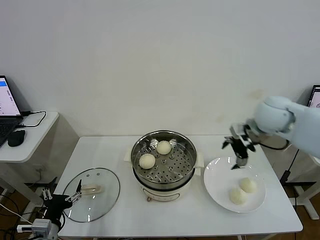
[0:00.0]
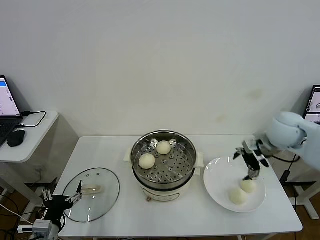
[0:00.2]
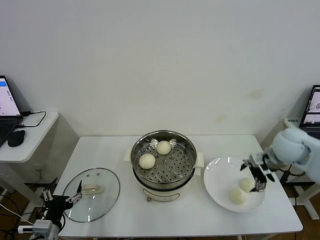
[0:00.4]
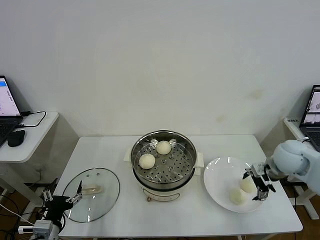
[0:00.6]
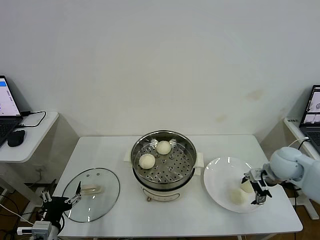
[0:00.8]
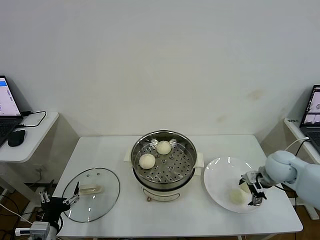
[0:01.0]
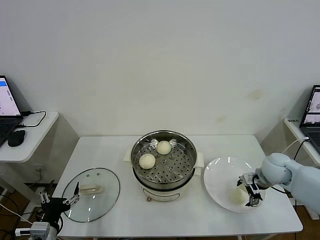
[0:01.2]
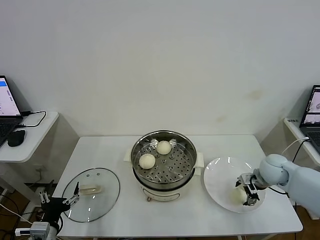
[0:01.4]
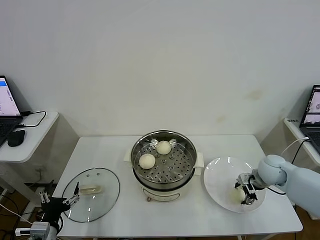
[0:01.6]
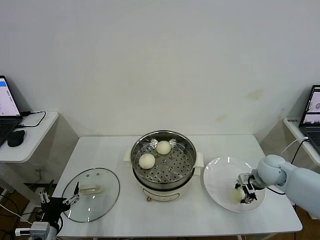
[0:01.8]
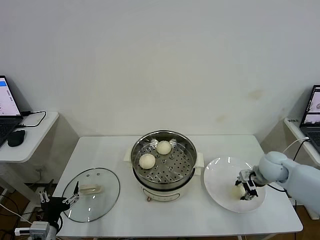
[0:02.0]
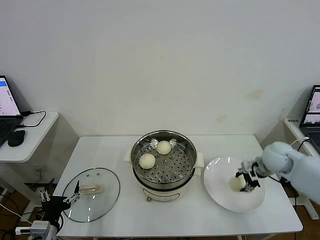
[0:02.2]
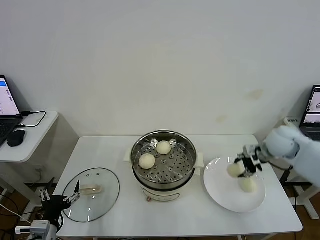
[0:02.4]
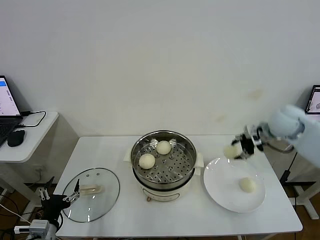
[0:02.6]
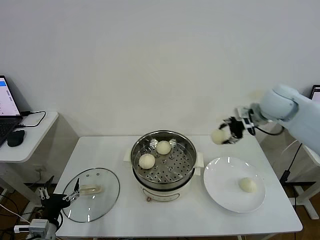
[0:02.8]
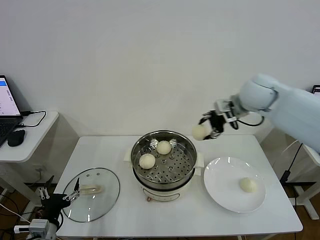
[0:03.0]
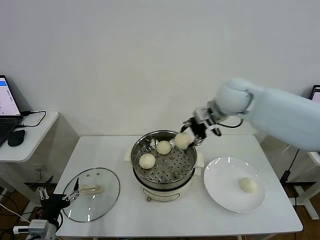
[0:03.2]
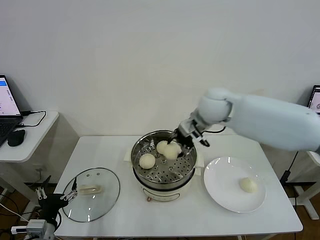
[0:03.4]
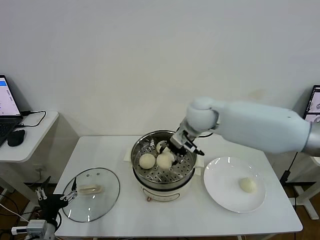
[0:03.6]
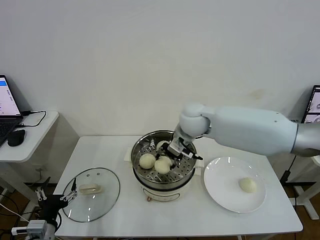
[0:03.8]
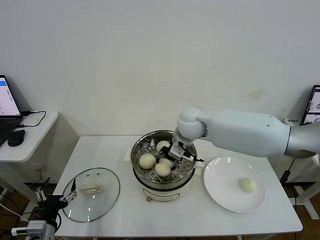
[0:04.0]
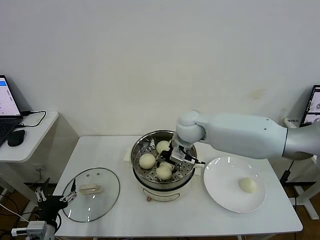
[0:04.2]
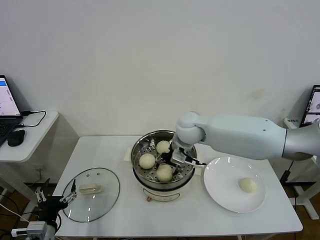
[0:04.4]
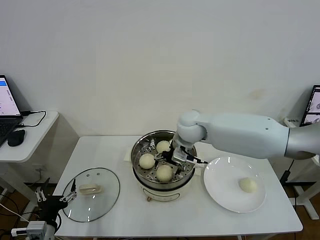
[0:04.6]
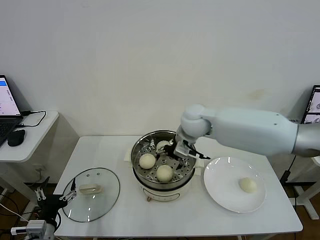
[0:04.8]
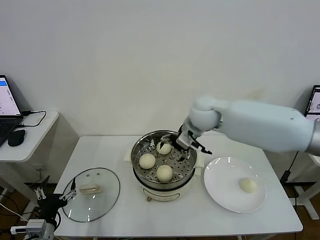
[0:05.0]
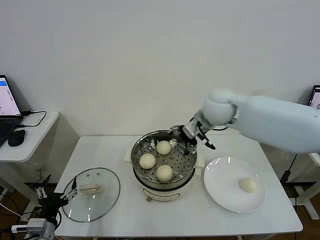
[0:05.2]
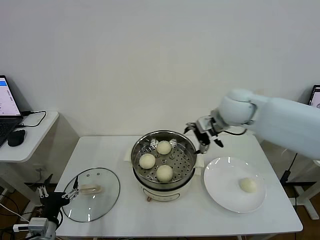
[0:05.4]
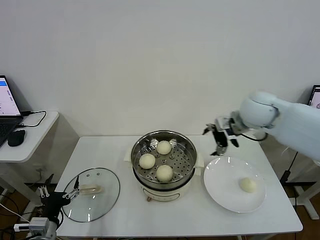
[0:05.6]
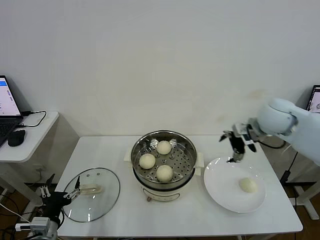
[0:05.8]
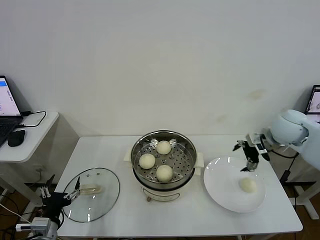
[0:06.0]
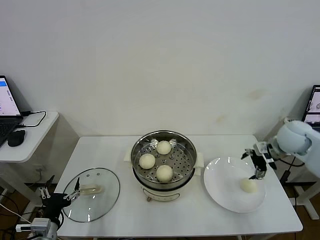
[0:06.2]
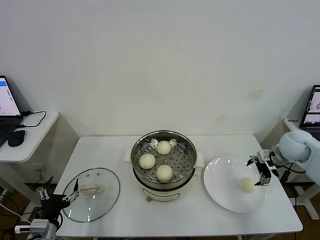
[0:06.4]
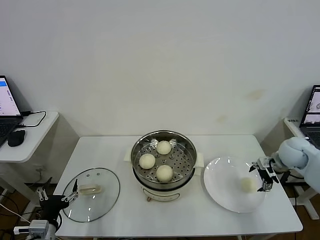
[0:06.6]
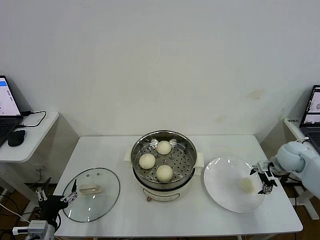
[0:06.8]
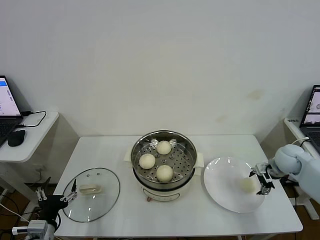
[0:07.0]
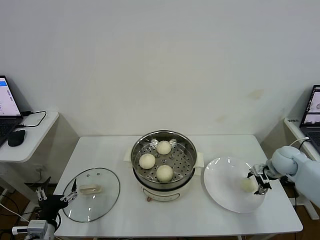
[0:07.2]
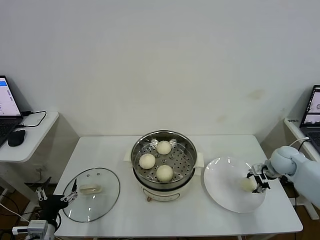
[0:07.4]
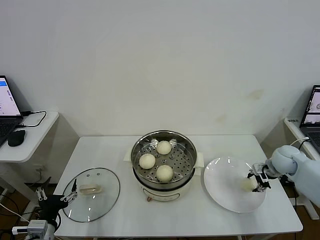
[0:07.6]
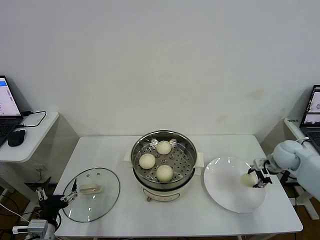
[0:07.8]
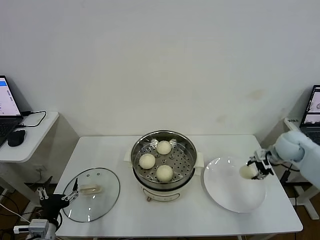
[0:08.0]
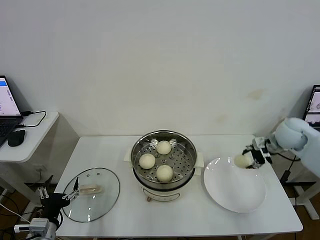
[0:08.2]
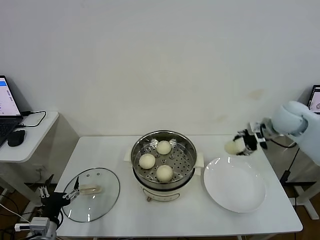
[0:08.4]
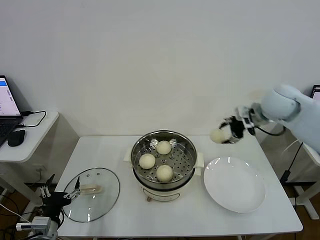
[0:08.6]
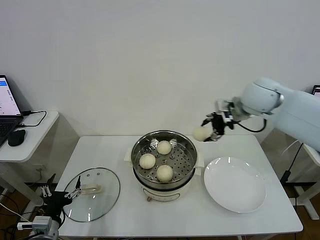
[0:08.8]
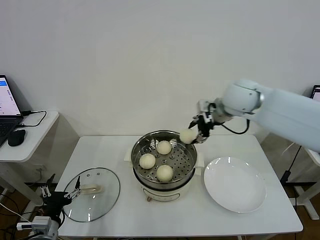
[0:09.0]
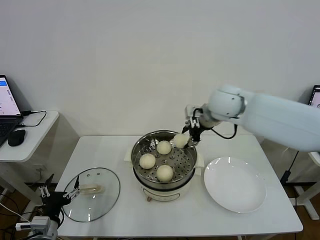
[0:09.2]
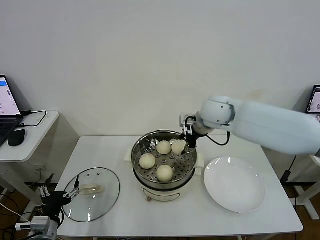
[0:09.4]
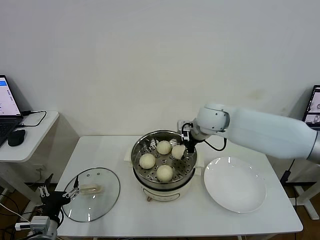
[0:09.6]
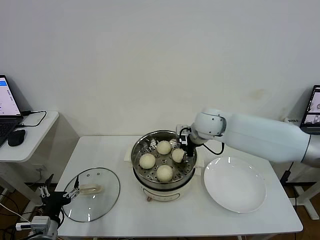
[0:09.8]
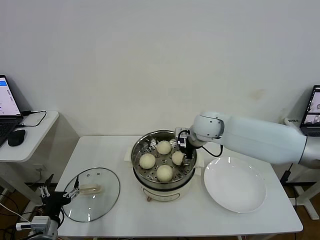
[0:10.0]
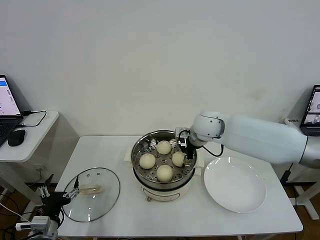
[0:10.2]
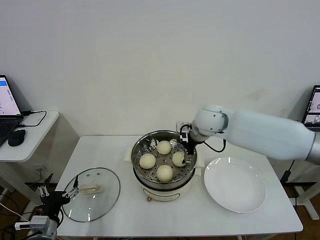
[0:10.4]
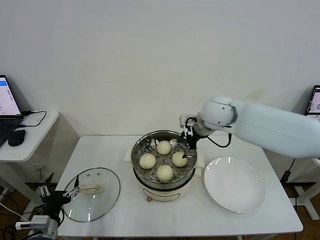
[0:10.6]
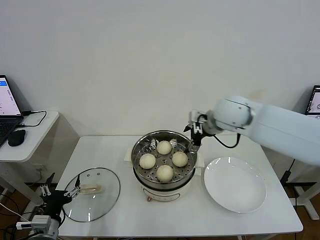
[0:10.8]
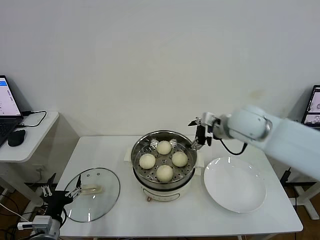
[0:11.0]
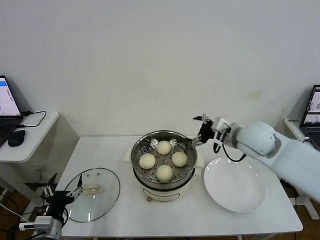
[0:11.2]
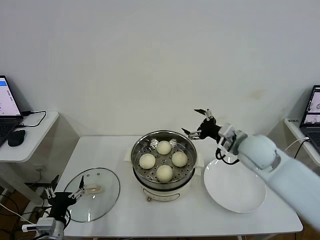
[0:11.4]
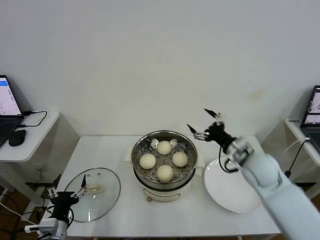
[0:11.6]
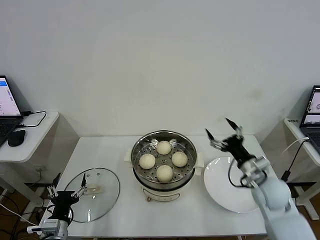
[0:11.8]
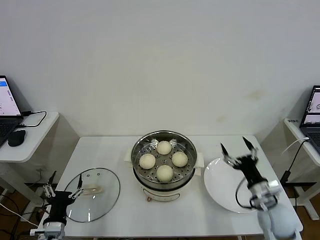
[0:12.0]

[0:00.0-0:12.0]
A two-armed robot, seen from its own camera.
Task of the whole recording: take steamed baozi put them in steamer then cover it.
Step, 0:00.0 to 0:01.8: Grasp the baozi in the plate with right gripper.
Step, 0:02.0 to 0:04.8: Place the baozi on the steamer with right gripper.
Step, 0:05.0 to 0:07.4: Grasp the baozi in the plate with right gripper.
Step, 0:07.8 to 0:10.2: Place the baozi on the steamer with right gripper.
0:00.0 to 0:01.6: The right gripper is displaced downward by approximately 20 cm, and closes up.
0:01.6 to 0:03.0: The right gripper travels upward and to the left by about 30 cm.
0:03.0 to 0:04.4: The right gripper travels to the left and downward by about 20 cm, and opens its fingers.
0:04.4 to 0:06.0: The right gripper goes approximately 30 cm to the right, and opens up.
0:06.0 to 0:07.6: The right gripper moves downward and to the right, approximately 15 cm, and closes.
0:07.6 to 0:09.0: The right gripper moves to the left and upward, some 35 cm.
0:09.0 to 0:10.4: The right gripper heads downward and to the left, covering roughly 10 cm, and opens up.
0:10.4 to 0:12.0: The right gripper is displaced backward, downward and to the right by about 35 cm.

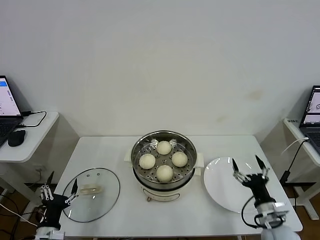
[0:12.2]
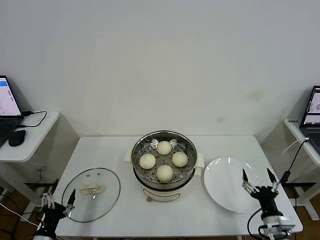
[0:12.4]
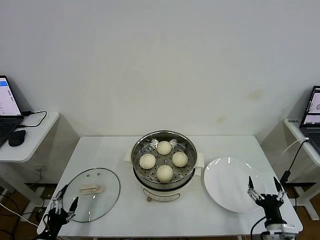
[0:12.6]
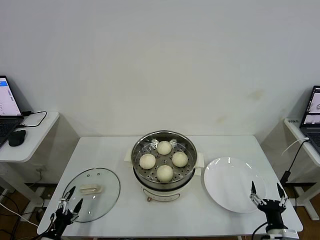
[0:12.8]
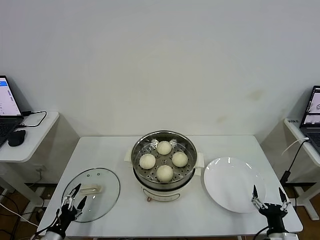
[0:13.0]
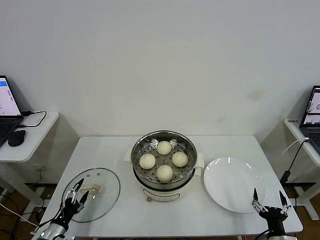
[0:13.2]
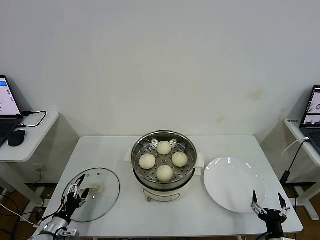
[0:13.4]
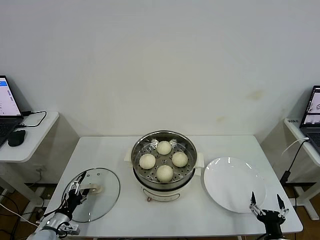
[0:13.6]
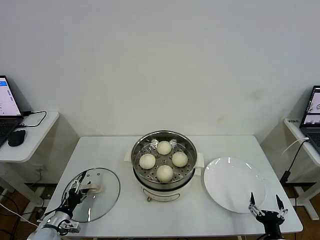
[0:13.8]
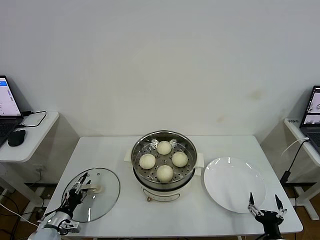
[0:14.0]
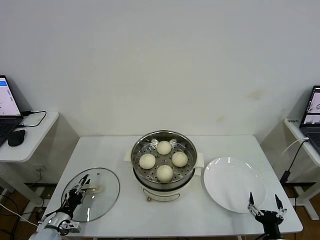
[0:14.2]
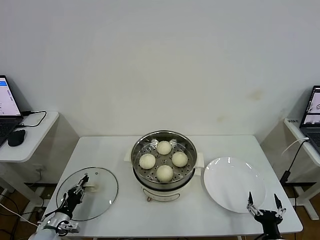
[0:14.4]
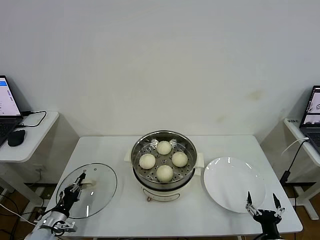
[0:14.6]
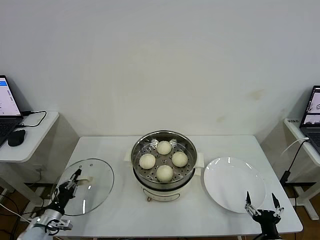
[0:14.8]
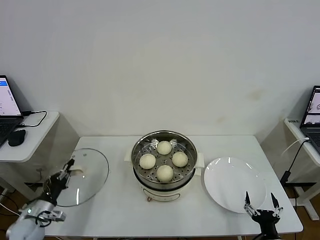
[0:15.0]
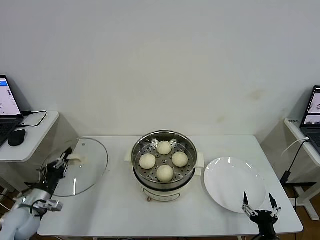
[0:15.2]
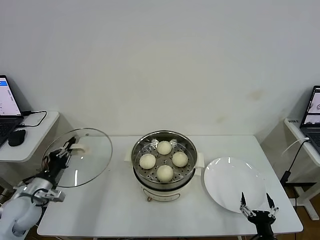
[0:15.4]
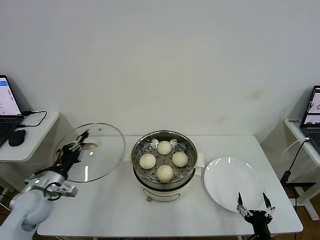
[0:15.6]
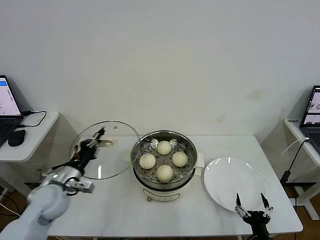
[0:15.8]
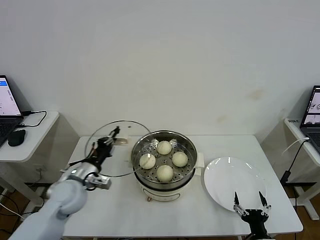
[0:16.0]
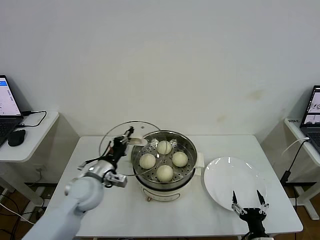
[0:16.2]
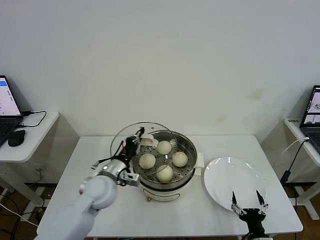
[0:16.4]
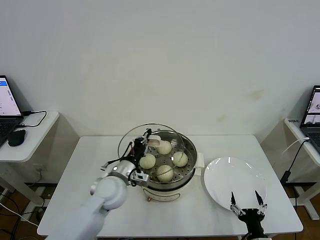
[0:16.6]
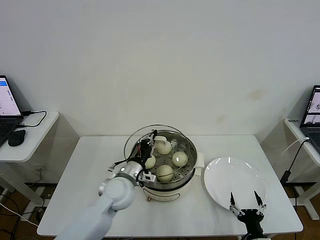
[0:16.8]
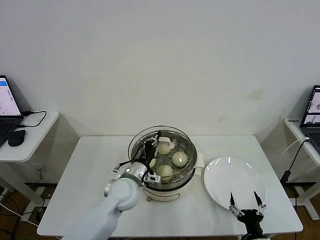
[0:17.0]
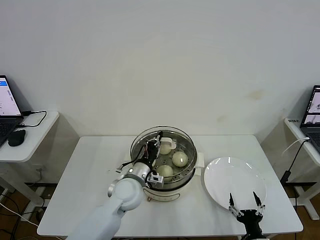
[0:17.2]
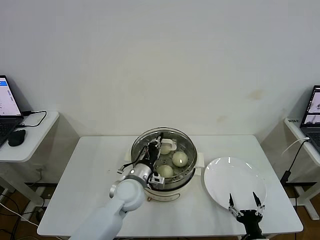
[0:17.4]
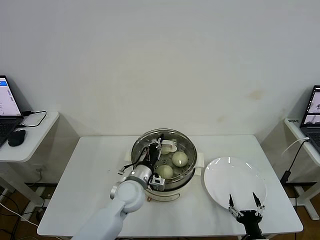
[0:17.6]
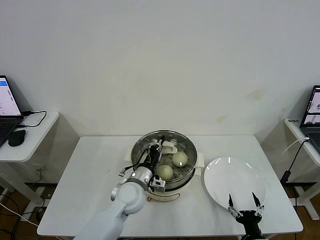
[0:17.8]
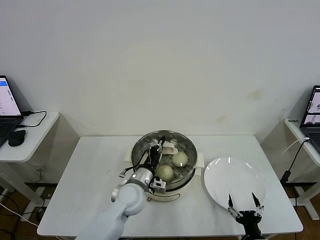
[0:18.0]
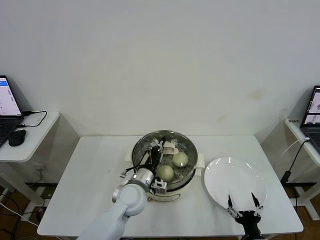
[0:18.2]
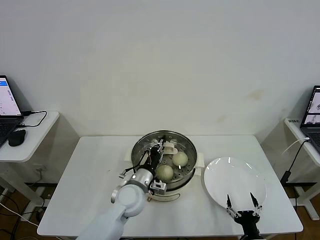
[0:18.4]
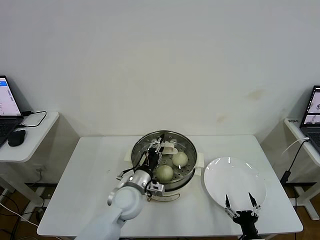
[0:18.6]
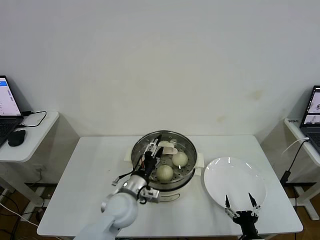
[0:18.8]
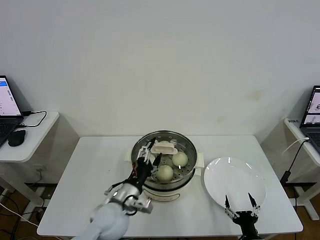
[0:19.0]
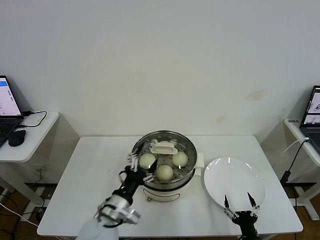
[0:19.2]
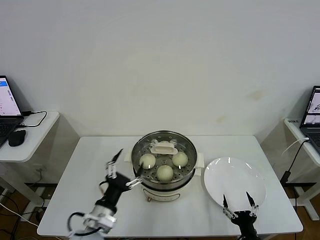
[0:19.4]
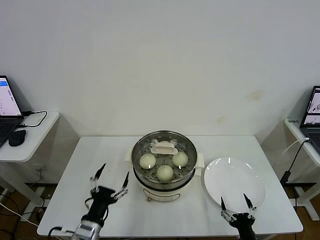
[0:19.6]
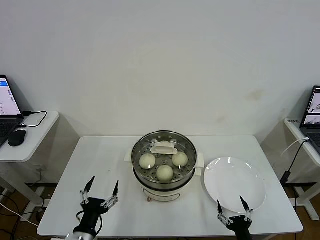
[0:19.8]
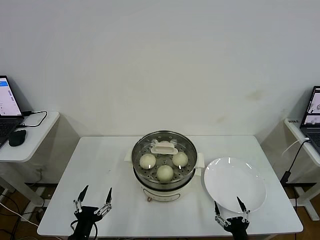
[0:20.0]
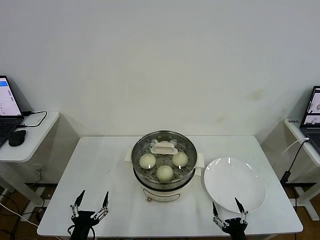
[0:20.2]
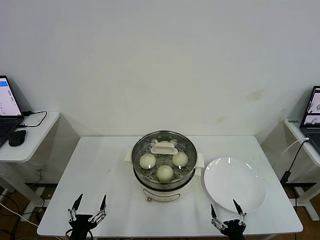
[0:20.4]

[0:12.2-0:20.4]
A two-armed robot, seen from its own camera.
Task of the whole recording: take steamed baozi put them in steamer then cover it.
Step, 0:12.2 to 0:14.6: Grasp the pot lid with left gripper.
Step, 0:14.8 to 0:19.0: Place the pot lid on the steamer with left gripper.
0:12.2 to 0:13.8: The left gripper is displaced downward, forward and to the left by some 15 cm. The right gripper goes some 10 cm backward and downward.
0:13.8 to 0:15.4: The left gripper goes roughly 15 cm upward, and closes its fingers.
0:15.4 to 0:17.2: The left gripper travels to the right by some 30 cm.
0:17.2 to 0:18.8: The left gripper opens its fingers.
0:18.8 to 0:20.4: The left gripper heads backward, to the left and downward, covering approximately 25 cm.
